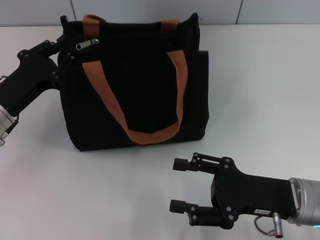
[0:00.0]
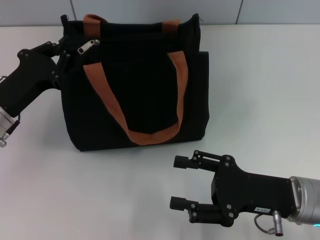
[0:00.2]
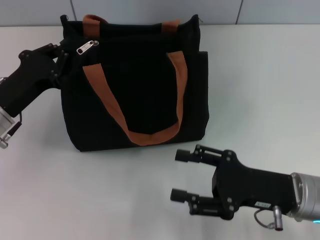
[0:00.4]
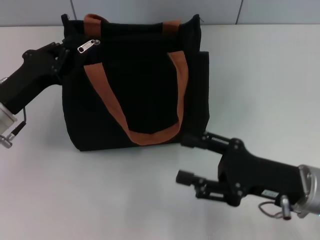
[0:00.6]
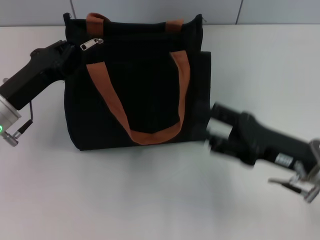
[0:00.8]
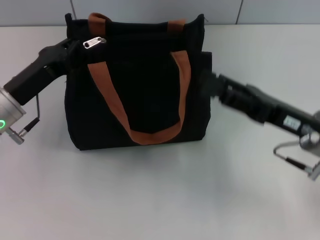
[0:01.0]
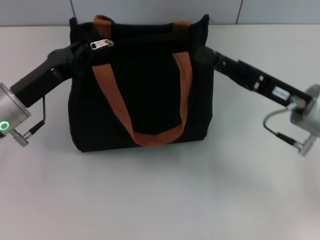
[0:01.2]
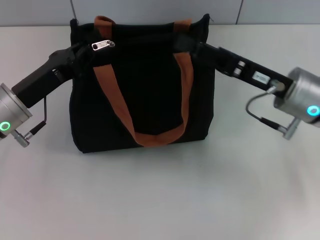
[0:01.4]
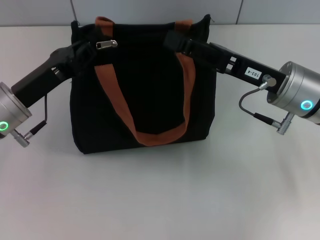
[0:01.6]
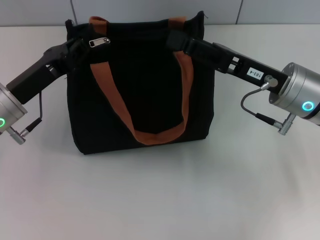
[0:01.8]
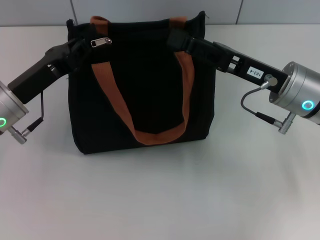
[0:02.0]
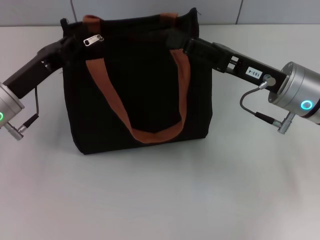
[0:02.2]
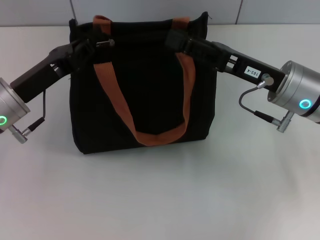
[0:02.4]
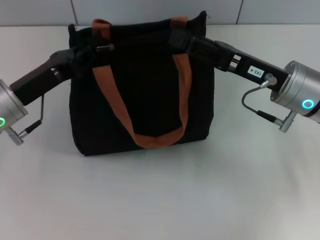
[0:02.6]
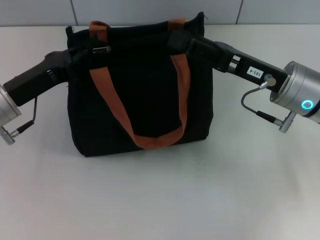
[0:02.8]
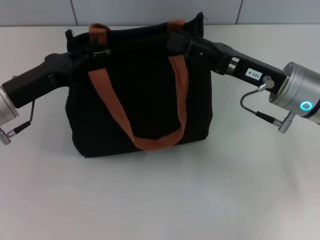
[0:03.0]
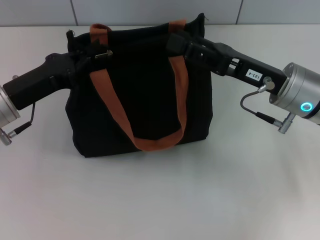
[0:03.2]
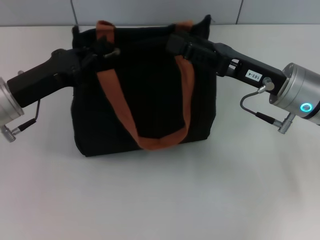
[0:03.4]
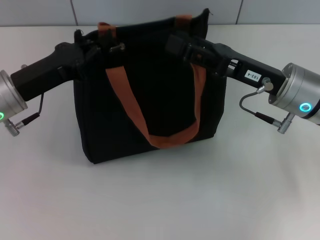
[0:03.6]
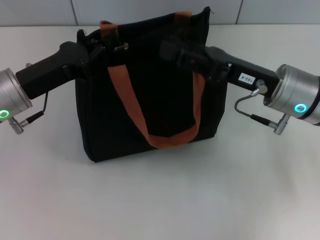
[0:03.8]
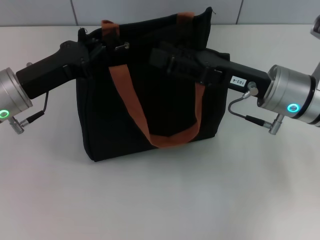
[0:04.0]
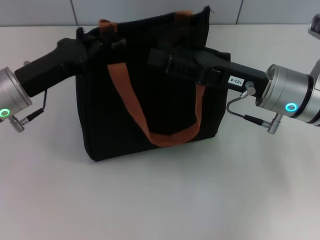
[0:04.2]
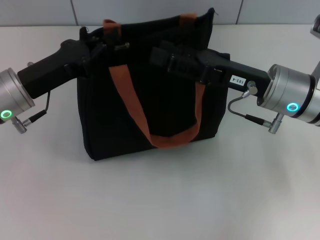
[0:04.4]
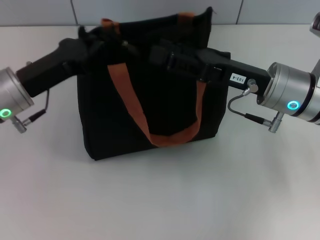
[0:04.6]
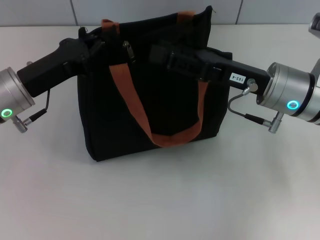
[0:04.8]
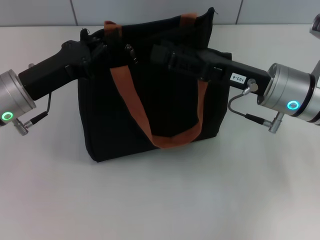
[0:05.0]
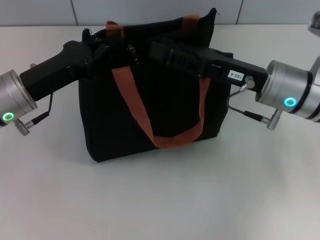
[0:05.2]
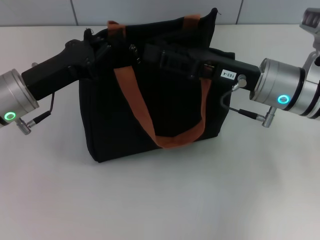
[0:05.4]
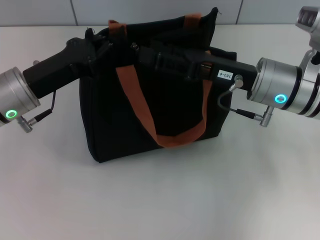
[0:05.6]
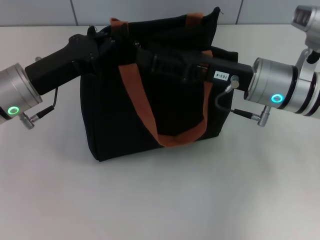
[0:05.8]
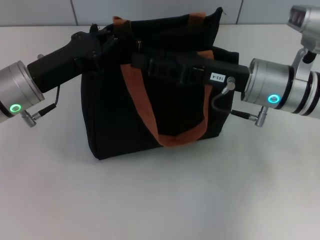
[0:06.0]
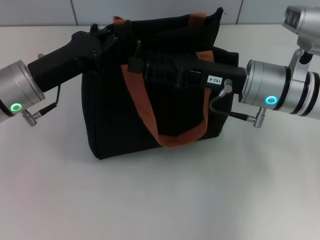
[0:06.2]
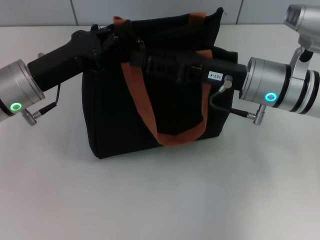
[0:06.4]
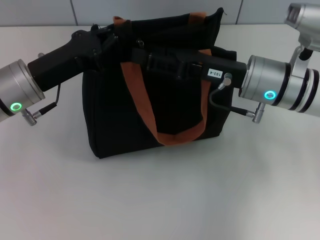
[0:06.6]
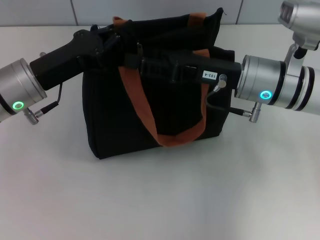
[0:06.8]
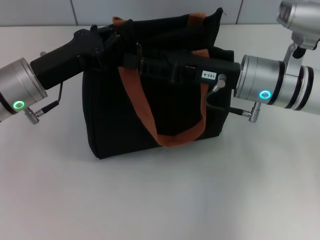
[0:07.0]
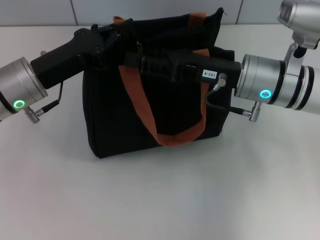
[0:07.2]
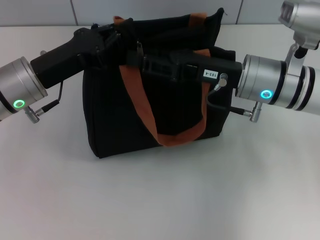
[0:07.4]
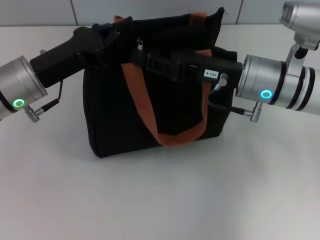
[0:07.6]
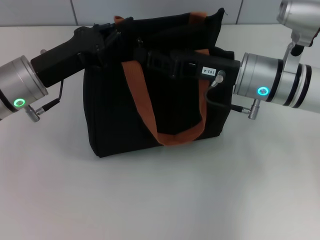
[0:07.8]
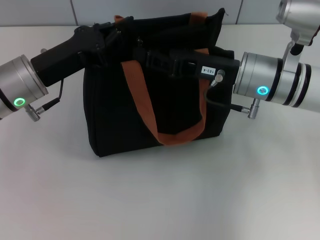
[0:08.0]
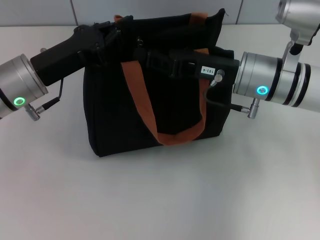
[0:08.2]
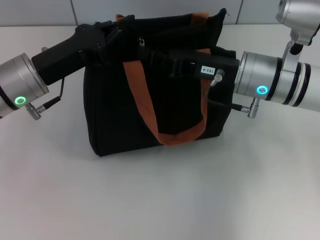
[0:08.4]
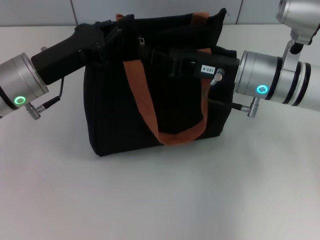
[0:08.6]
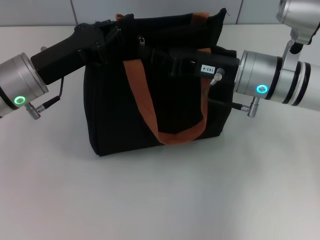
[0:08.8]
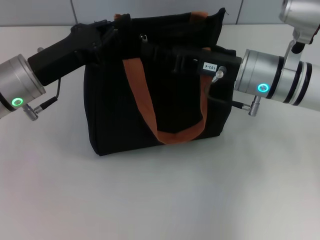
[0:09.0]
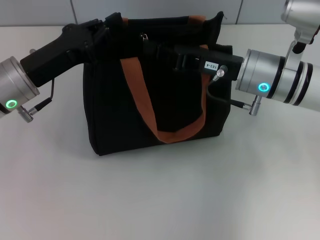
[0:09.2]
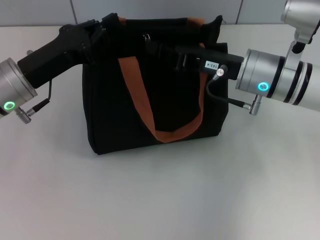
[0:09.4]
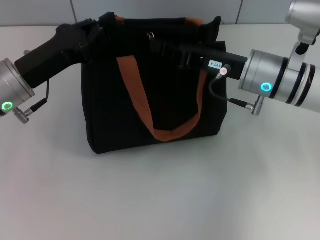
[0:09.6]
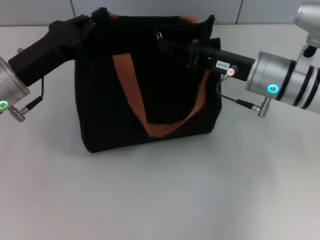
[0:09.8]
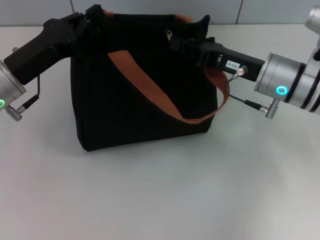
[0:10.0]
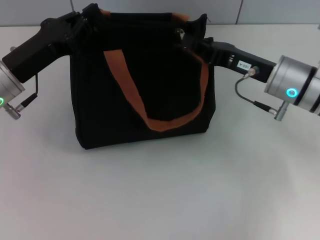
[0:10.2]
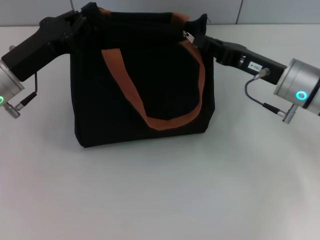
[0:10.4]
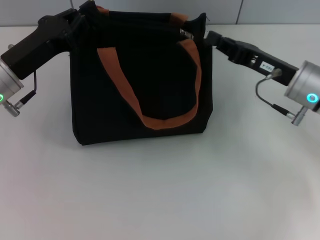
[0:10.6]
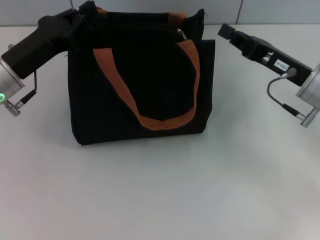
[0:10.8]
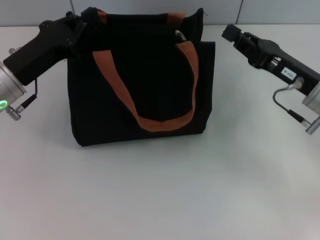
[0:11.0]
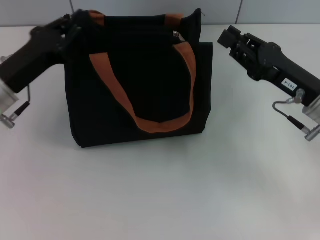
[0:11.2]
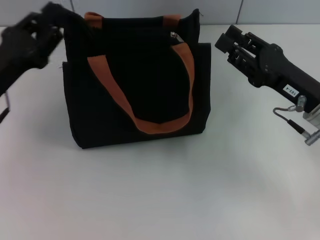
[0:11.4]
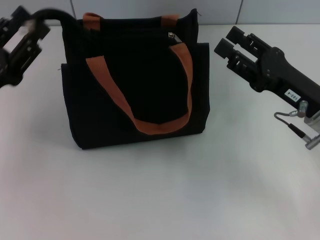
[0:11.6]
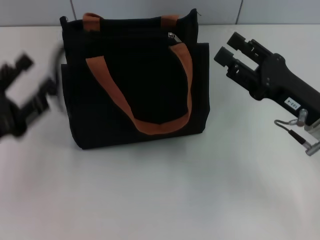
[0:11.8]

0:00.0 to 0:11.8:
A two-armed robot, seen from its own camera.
Step, 0:00.0 to 0:10.8: Pull up the zipper with your right hand.
Step, 0:11.0 to 0:11.8: Grab the zipper with your left hand.
0:00.0 to 0:01.4: The left gripper closes up, while the right gripper is displaced forward and upward by roughly 10 cm.
0:01.4 to 0:06.0: The grippers stay close to where they were, moving slightly.
0:06.0 to 0:07.4: Both grippers stay about where they are.
0:07.4 to 0:08.8: The right gripper closes its fingers.
0:08.8 to 0:10.4: The right gripper shifts some 5 cm to the right.
0:10.4 to 0:11.8: The two grippers go about 10 cm backward. The right gripper opens up. Meanwhile the left gripper opens up.

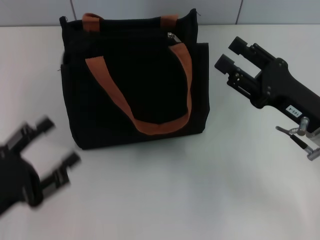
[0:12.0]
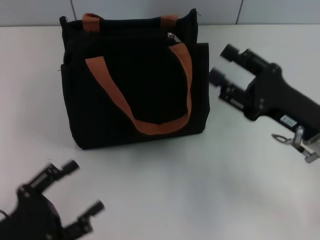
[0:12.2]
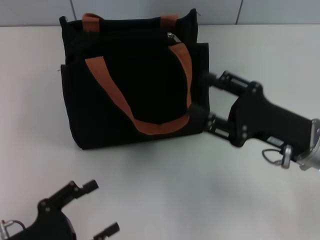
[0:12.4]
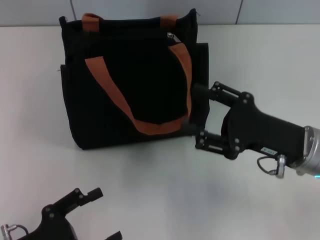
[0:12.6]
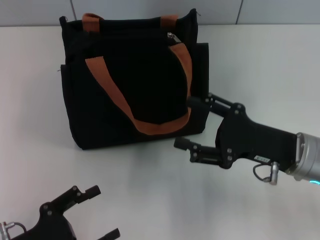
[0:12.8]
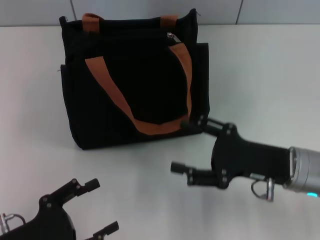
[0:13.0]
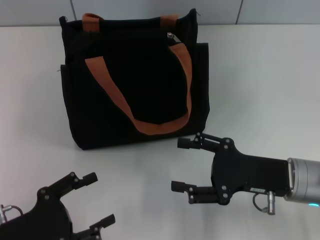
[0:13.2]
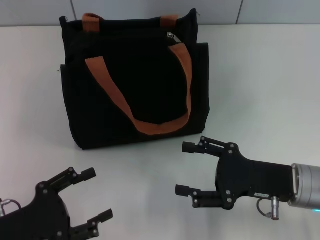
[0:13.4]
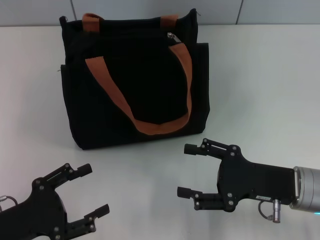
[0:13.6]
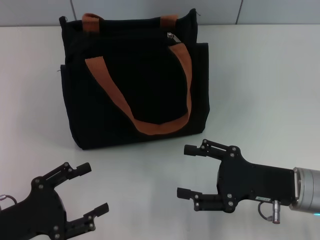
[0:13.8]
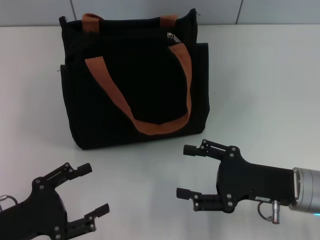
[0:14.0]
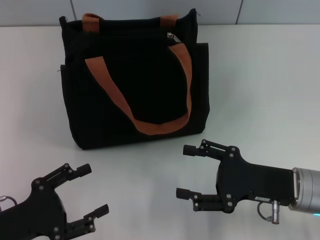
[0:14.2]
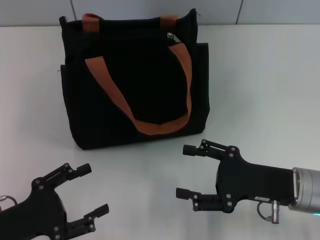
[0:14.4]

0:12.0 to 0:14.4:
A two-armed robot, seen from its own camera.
0:12.0 to 0:13.2: The right gripper ends up approximately 5 cm from where it was, while the left gripper shifts by about 5 cm.
0:13.2 to 0:14.4: The grippers stay close to where they were, moving slightly.

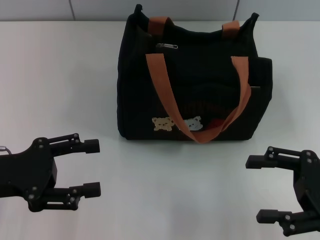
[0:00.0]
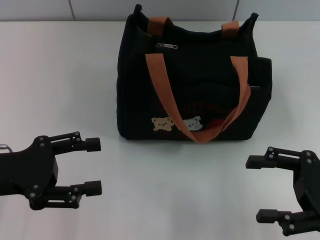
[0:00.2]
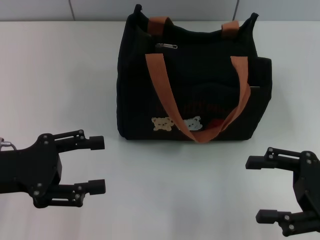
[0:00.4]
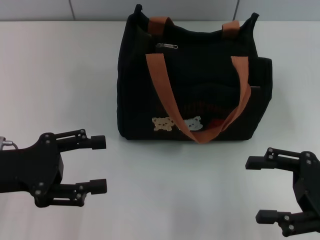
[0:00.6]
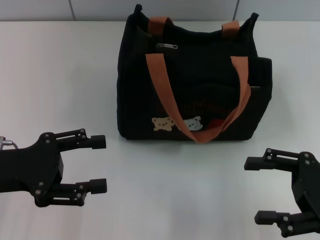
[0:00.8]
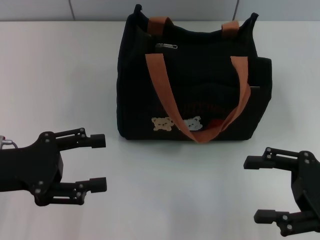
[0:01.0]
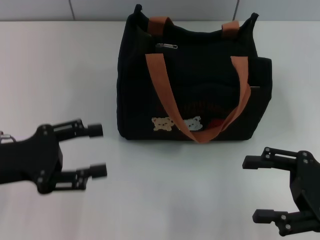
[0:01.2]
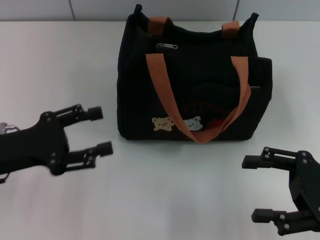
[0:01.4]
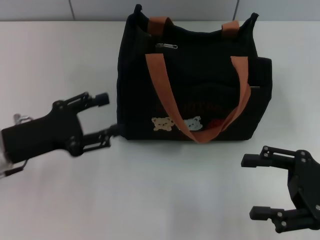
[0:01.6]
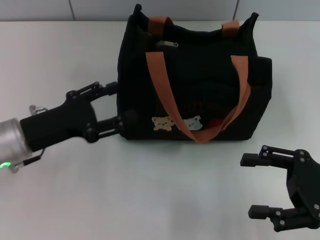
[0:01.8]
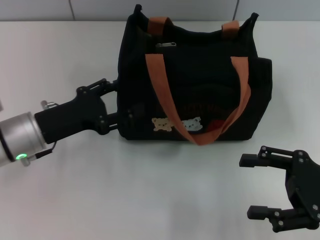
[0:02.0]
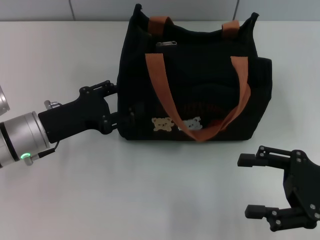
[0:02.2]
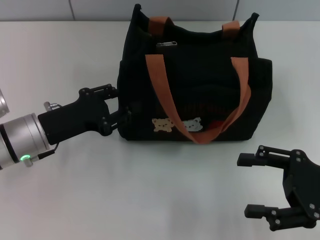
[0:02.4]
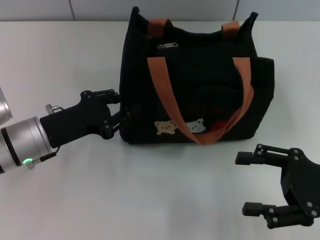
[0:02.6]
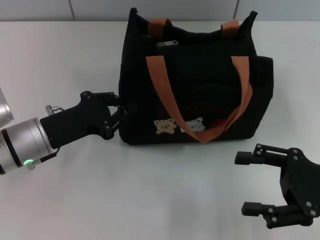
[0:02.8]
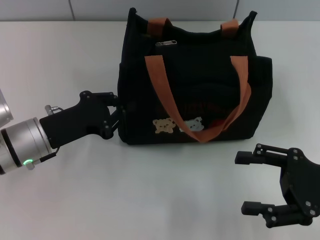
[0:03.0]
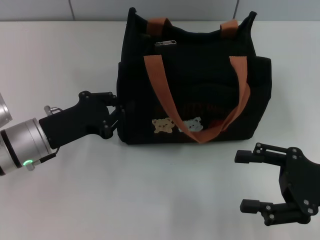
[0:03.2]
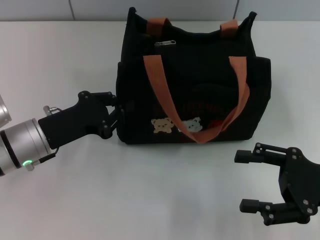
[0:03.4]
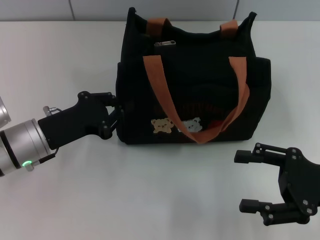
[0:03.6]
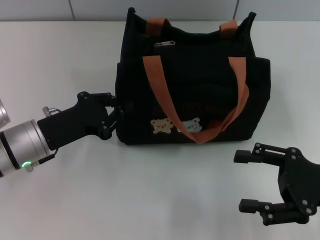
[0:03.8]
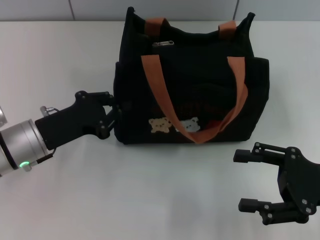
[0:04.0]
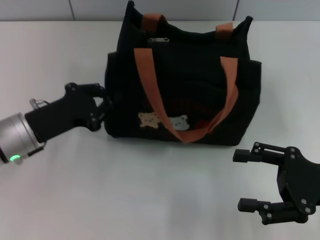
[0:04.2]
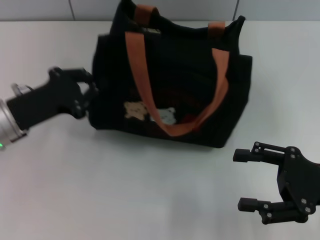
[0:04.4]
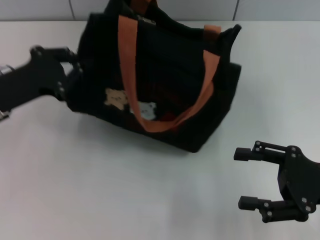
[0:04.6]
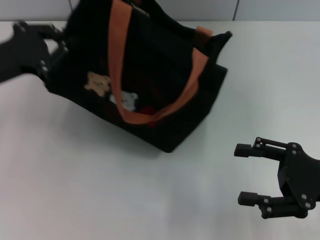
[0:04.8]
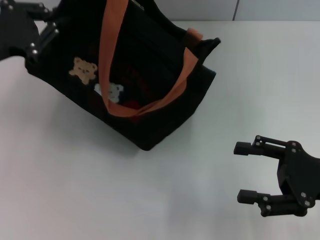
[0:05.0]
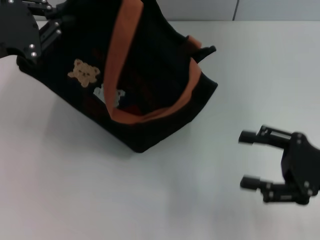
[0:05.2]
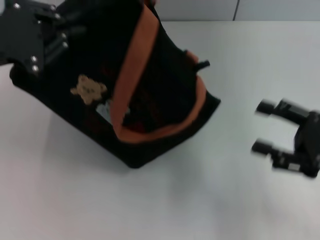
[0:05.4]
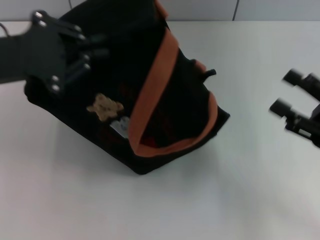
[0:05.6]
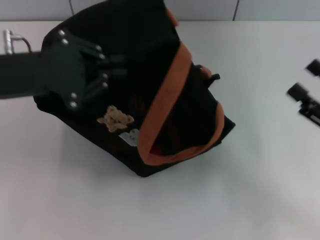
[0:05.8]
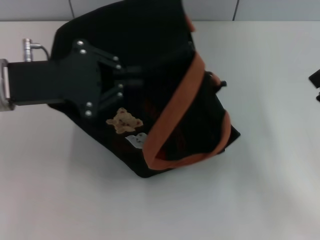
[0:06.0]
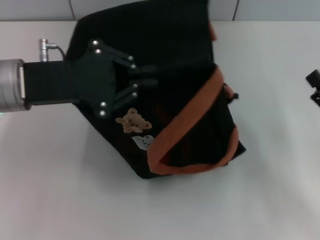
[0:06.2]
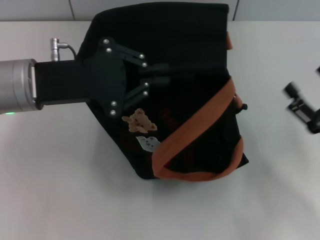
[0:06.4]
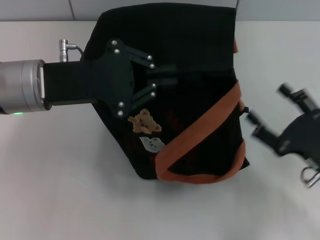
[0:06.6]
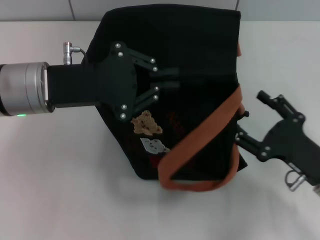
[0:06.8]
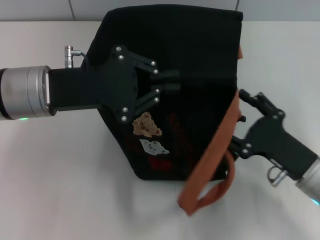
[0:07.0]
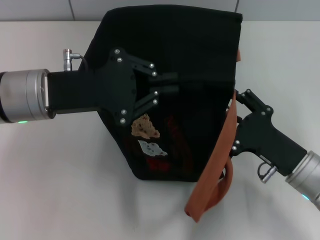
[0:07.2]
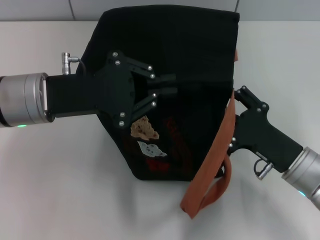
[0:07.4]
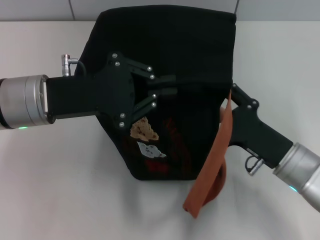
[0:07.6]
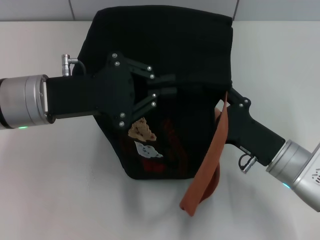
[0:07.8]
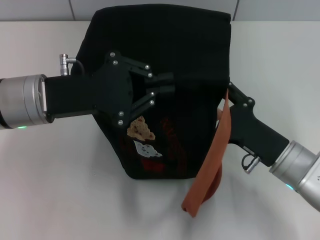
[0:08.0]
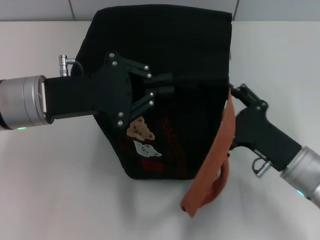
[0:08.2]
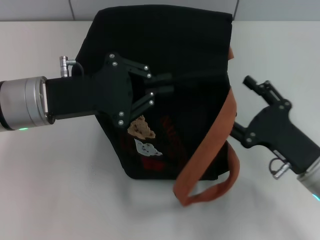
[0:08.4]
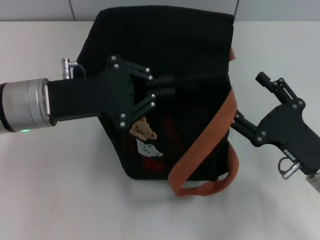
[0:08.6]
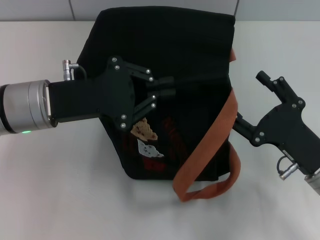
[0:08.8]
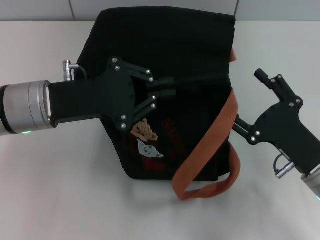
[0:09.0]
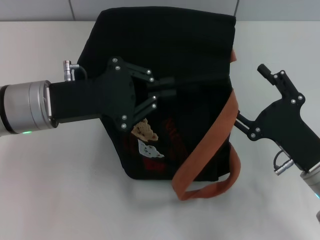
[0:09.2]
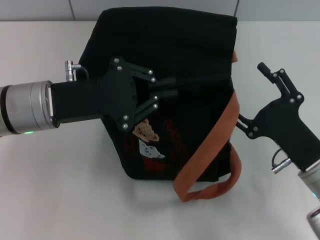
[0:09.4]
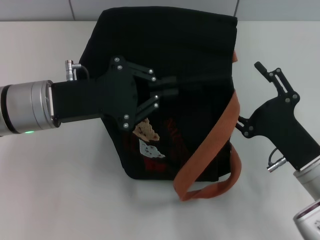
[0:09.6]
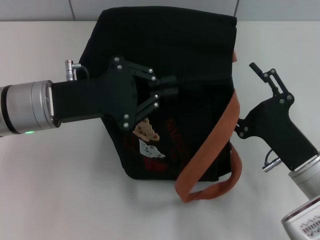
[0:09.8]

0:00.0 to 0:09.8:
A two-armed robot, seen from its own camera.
0:00.0 to 0:01.4: The grippers make only small movements.
0:01.4 to 0:02.8: The left gripper travels to the right by roughly 5 cm, and closes.
0:02.8 to 0:04.2: The grippers move only a little.
0:04.2 to 0:05.6: The left gripper is displaced upward by about 15 cm.
0:05.6 to 0:07.0: The right gripper heads to the left and downward, covering about 10 cm. Meanwhile the left gripper goes some 5 cm to the right.
0:07.0 to 0:08.4: The grippers make only small movements.
